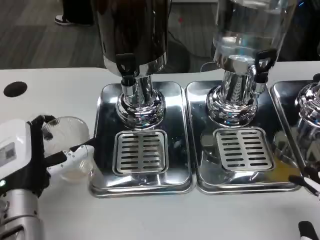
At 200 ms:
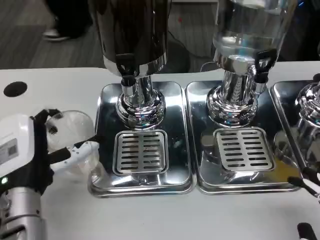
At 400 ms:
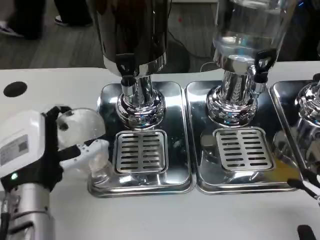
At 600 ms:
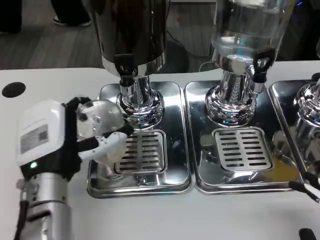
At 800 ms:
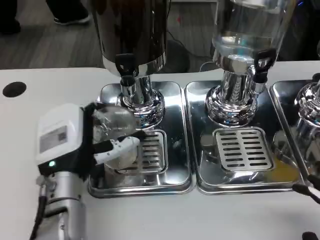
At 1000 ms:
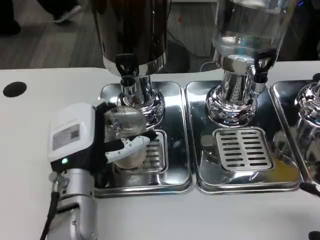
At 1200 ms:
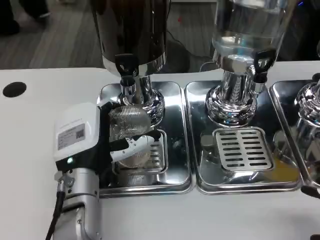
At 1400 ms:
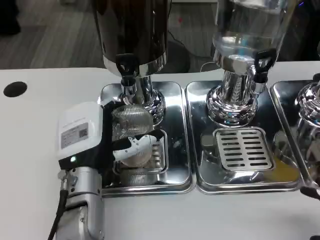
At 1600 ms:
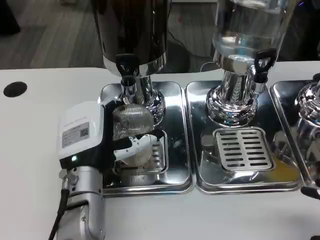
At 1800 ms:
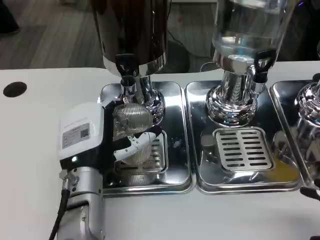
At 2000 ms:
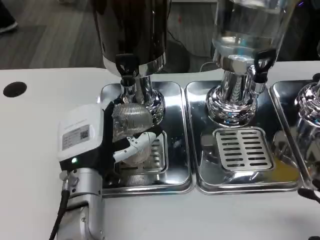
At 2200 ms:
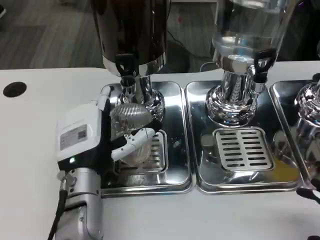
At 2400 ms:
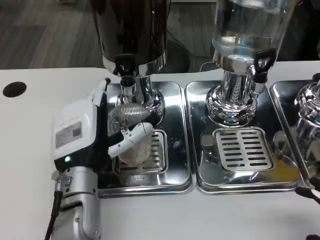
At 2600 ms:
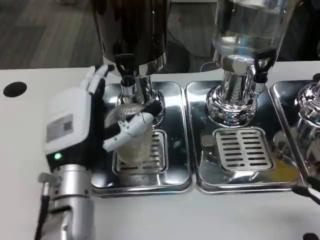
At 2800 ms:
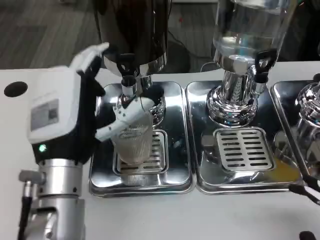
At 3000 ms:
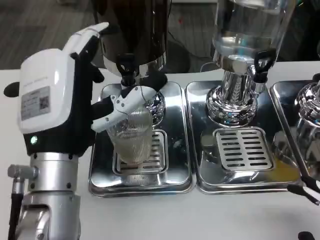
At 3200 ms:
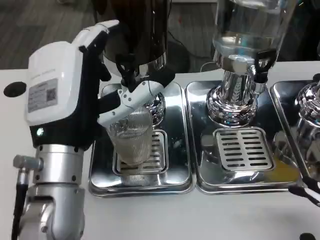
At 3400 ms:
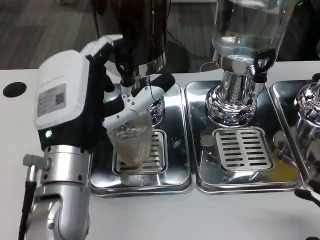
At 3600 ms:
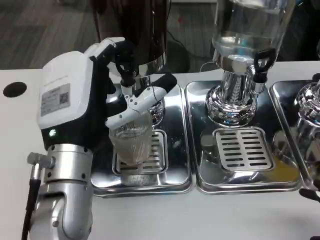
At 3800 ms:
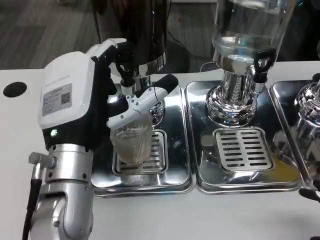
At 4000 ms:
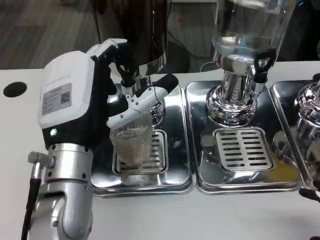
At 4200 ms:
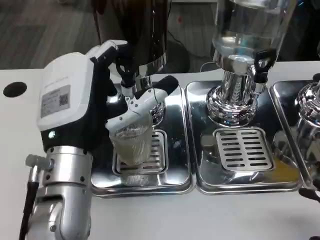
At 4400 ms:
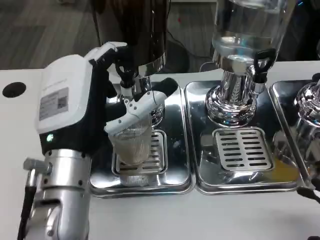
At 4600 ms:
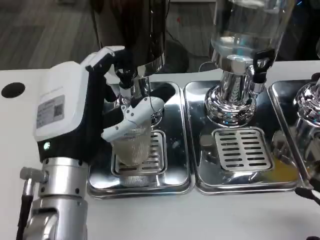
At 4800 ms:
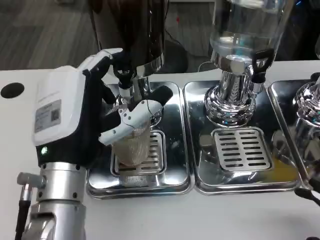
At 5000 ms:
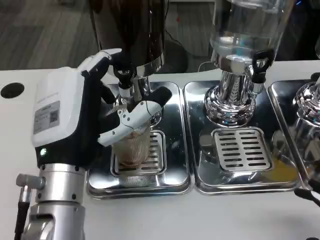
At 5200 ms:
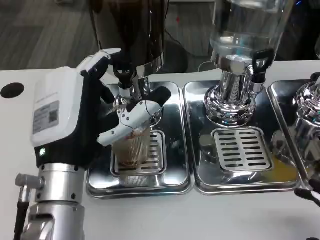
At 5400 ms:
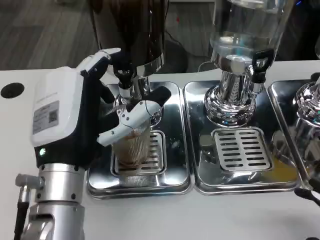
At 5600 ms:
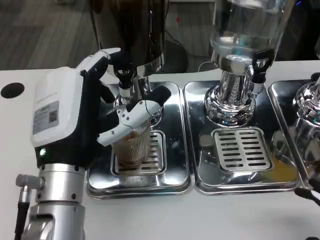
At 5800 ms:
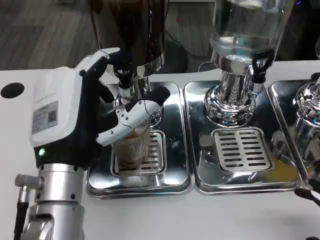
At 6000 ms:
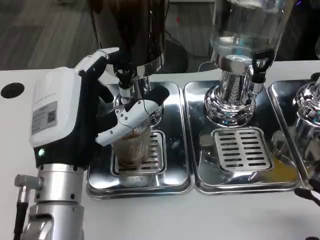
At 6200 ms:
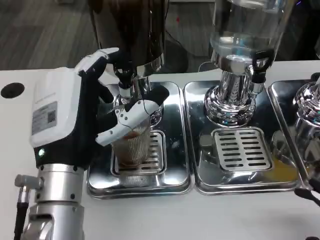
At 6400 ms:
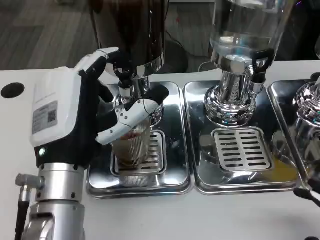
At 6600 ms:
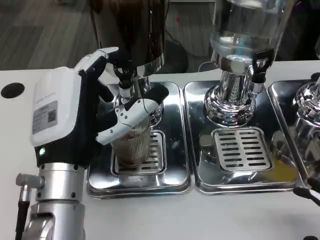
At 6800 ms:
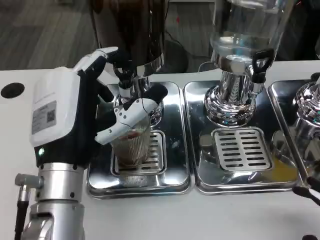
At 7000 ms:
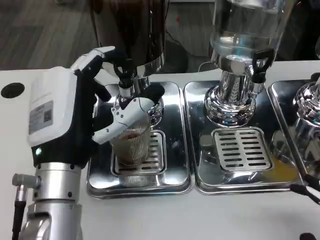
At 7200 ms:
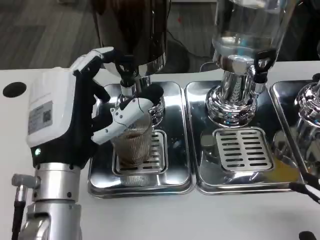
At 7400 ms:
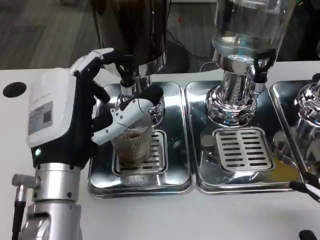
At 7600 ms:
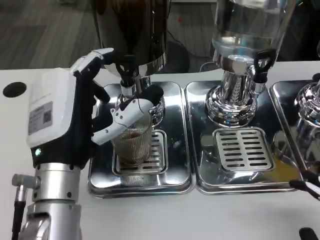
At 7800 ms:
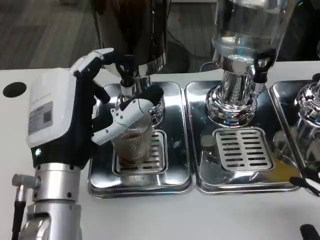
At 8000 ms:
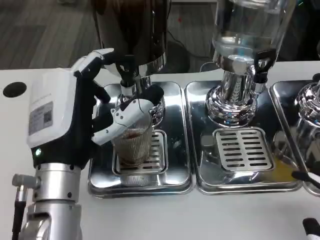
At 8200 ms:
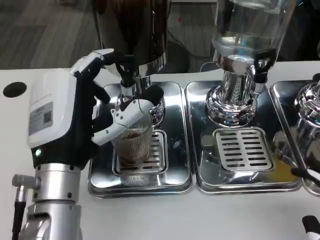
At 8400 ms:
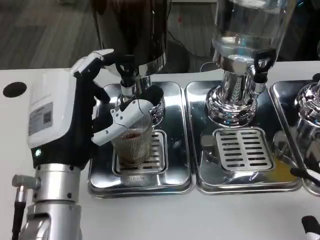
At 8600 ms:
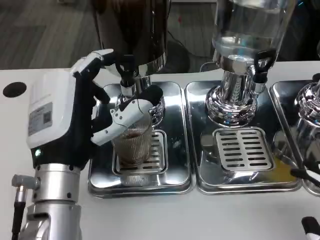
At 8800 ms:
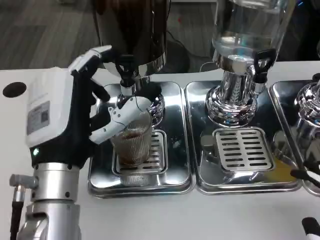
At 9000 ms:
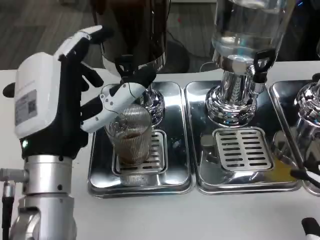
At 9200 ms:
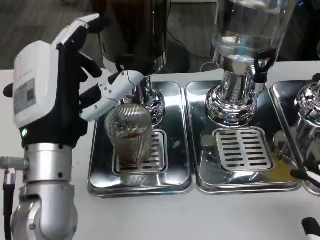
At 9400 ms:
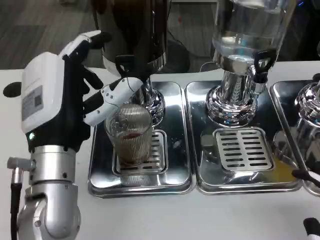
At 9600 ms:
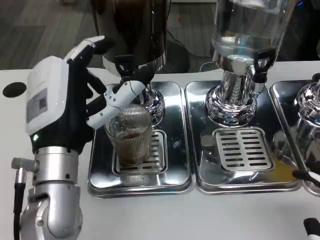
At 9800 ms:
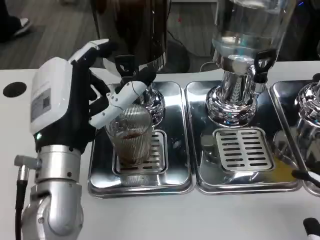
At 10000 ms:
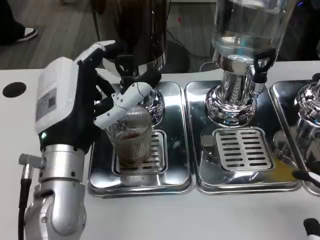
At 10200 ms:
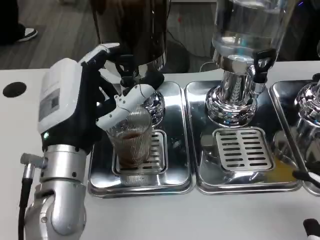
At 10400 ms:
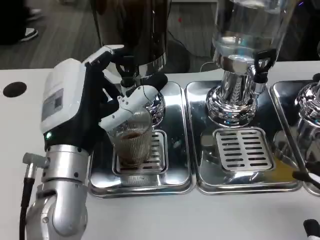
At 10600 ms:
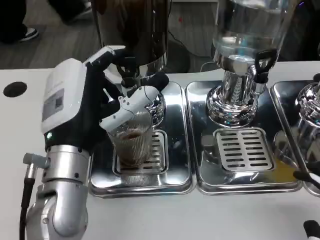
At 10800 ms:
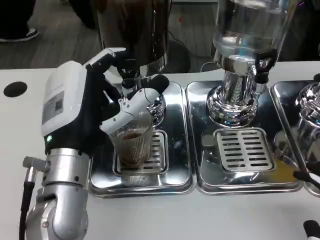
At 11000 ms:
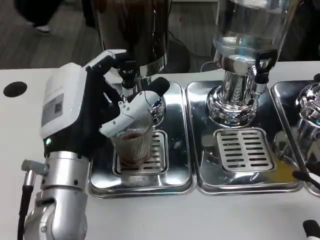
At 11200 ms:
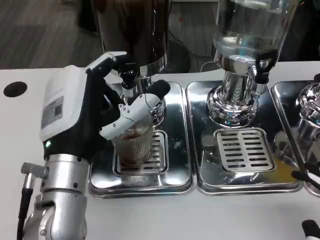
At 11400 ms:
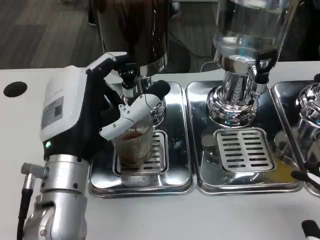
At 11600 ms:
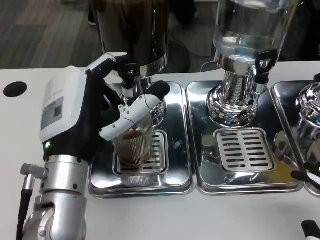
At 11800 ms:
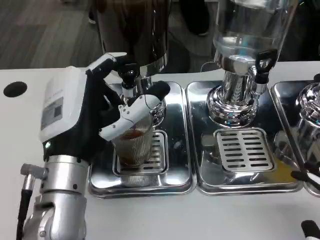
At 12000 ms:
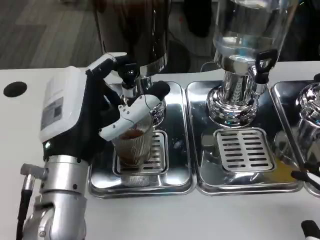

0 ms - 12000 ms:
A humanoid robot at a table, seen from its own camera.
Task of the whole recording: Grasp the cup under the faucet to collect the drink, then remove the cup.
0 ms - 1600 ms: The left hand travels to the right by roughly 5 cm.
1600 ms - 3000 ms: The left hand shifts roughly 10 cm upward.
6000 ms - 7600 ms: Both hands stay put.

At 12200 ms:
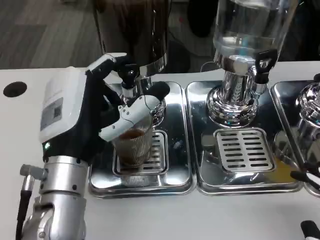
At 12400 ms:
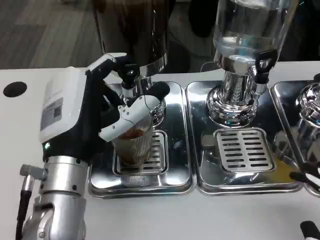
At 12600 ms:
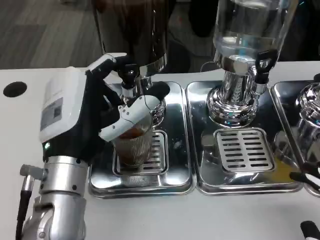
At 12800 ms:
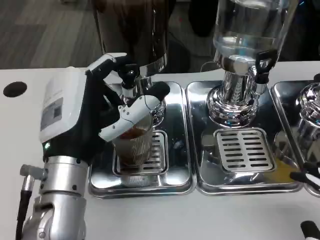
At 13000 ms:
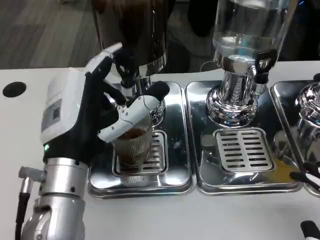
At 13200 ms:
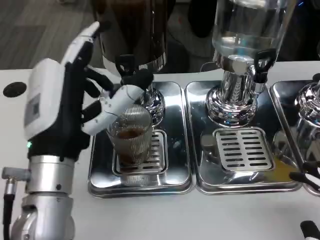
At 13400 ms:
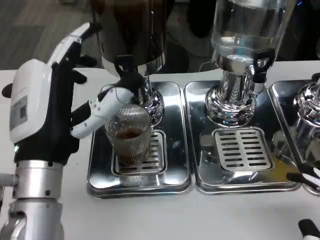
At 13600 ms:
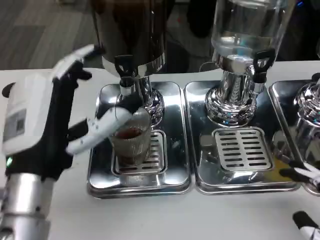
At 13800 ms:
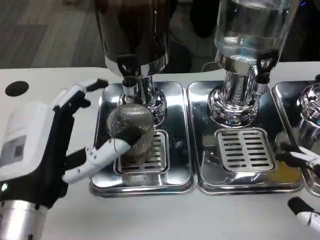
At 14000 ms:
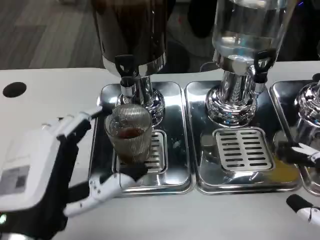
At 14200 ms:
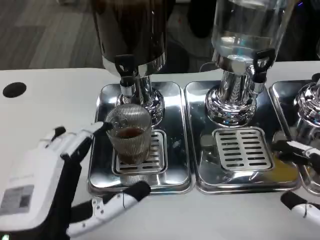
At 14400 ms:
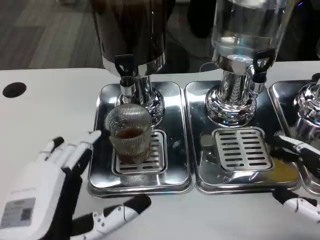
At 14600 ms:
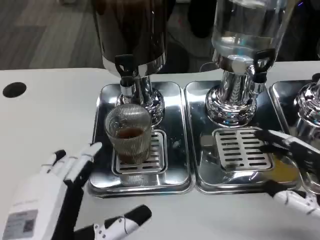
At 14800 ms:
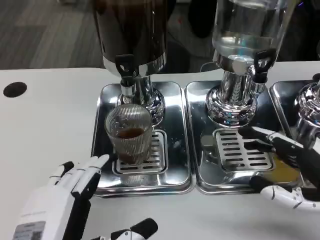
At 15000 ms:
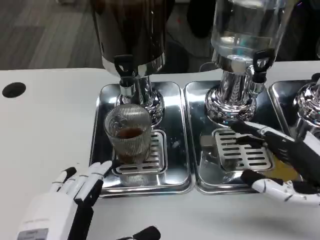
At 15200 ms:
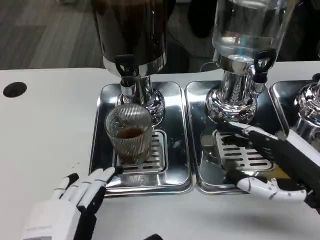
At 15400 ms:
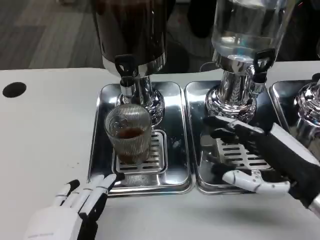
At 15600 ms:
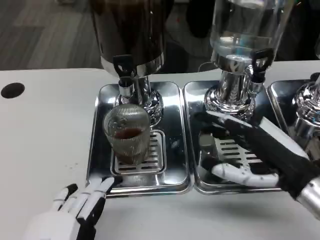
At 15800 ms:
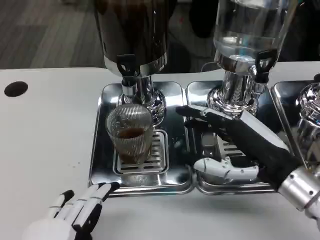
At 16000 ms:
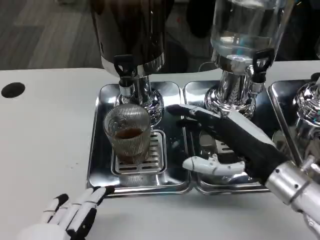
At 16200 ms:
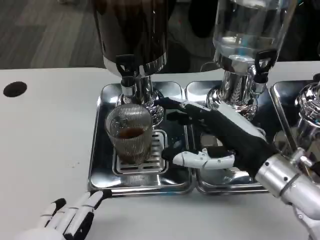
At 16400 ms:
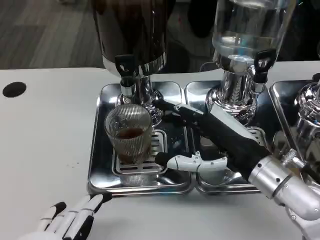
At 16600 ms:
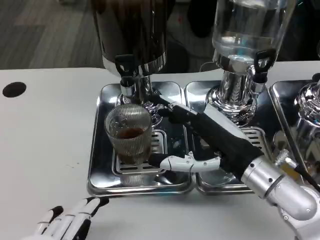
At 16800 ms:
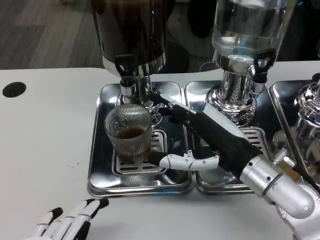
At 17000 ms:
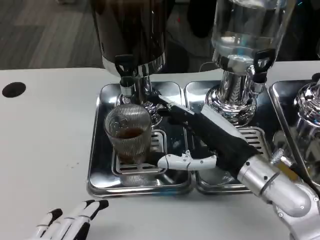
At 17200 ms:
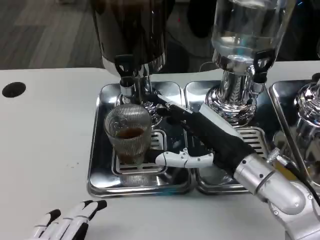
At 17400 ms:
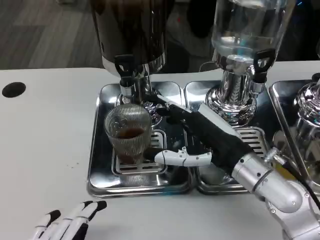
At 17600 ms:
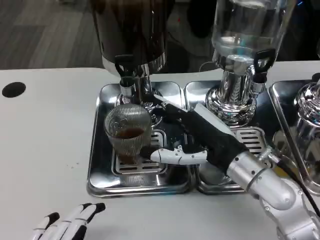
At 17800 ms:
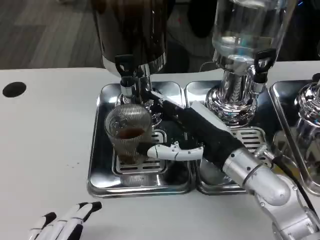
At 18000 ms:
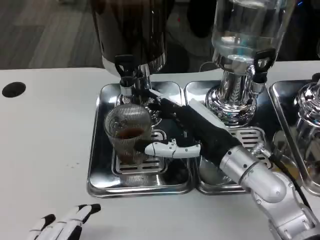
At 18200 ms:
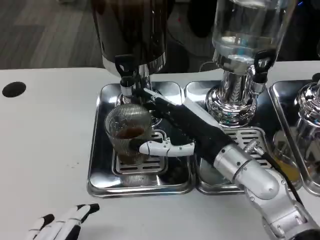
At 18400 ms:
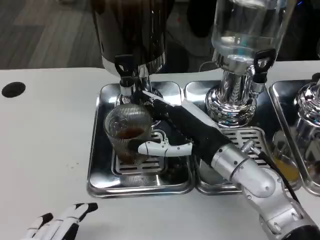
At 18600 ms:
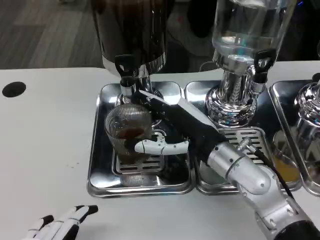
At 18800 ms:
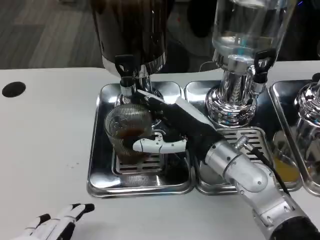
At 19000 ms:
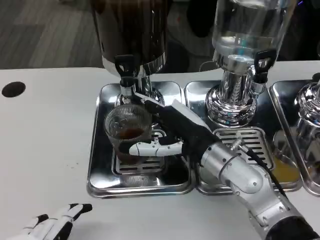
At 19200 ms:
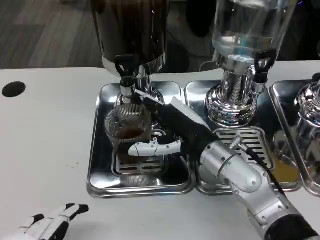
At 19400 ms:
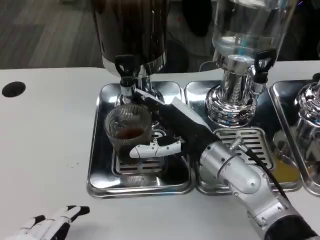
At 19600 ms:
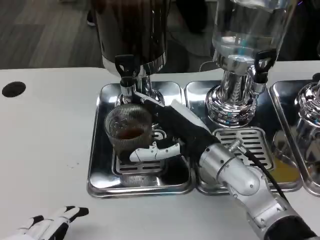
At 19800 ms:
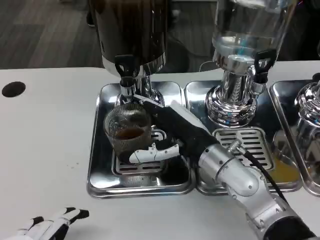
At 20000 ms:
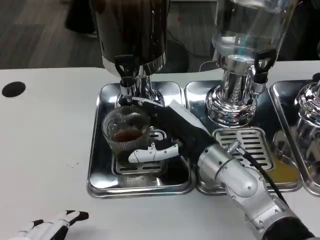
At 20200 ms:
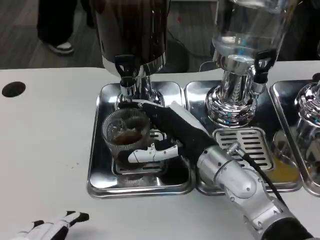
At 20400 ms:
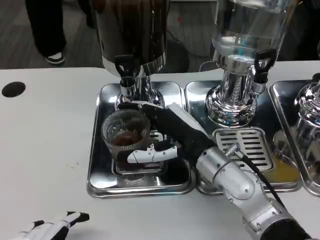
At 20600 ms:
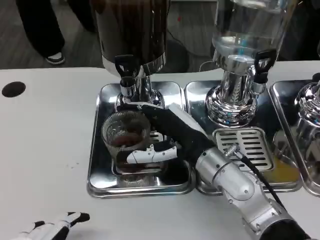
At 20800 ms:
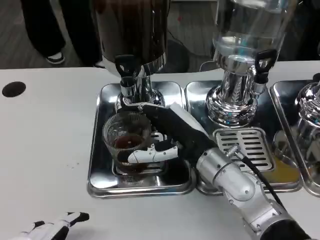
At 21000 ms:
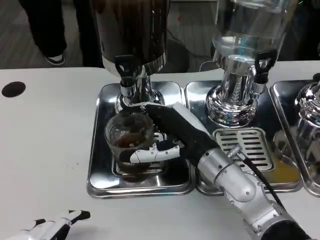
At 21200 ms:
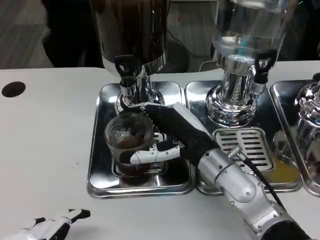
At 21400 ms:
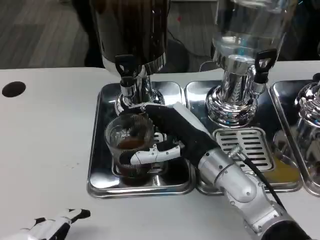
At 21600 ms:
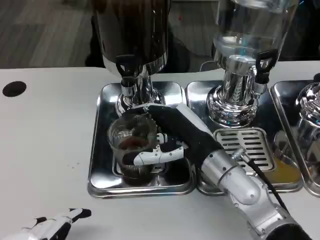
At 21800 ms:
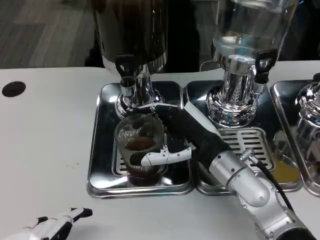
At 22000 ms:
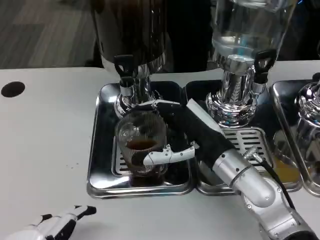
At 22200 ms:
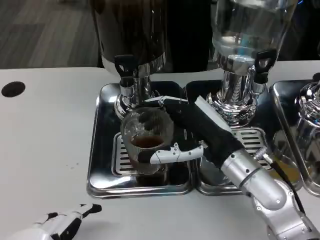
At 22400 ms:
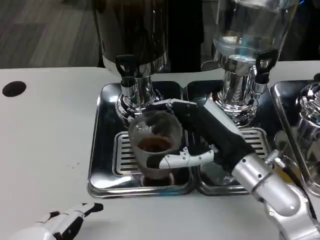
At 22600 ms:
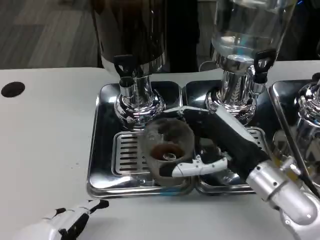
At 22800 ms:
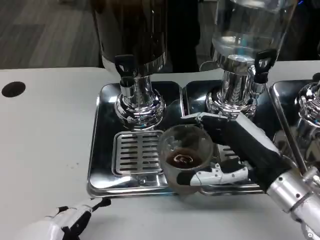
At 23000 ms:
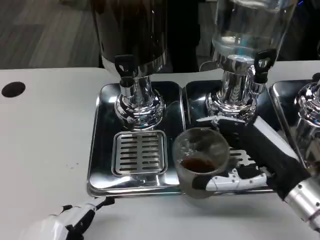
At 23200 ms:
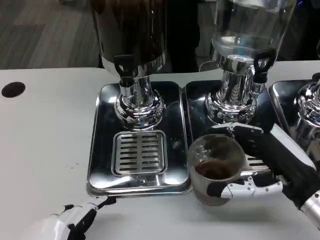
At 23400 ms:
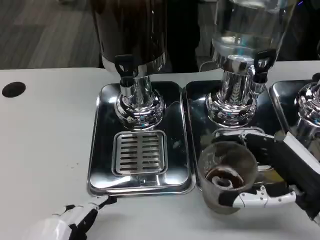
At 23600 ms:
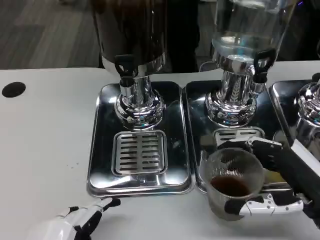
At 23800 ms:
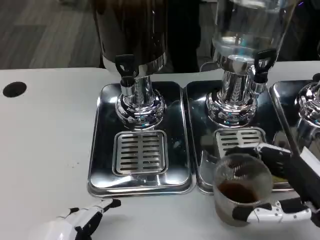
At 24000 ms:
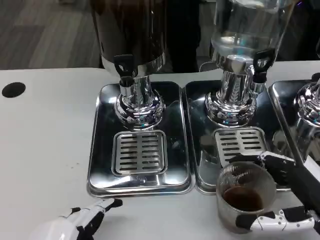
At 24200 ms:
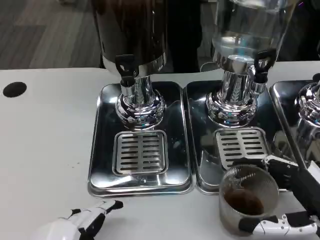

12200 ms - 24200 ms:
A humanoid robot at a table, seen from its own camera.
Task of the whole recording: Grasp the cup under the faucet to collect the drink, then remove the cup.
12200 ms - 13800 ms: The right hand travels forward by approximately 5 cm. Meanwhile the left hand travels backward by some 5 cm.
13800 ms - 15200 ms: The left hand heads backward, covering approximately 10 cm. The right hand goes approximately 10 cm forward.
15200 ms - 16600 ms: The right hand travels to the left and forward by about 10 cm.
16600 ms - 18200 ms: The right hand ends up about 5 cm from where it was.
18200 ms - 19800 ms: The hands stay close to where they were, moving slightly.
19800 ms - 21200 ms: Both hands stay about where they are.
21200 ms - 22600 ms: The right hand goes roughly 5 cm to the right.
22600 ms - 24200 ms: The right hand shifts some 15 cm backward and to the right.
